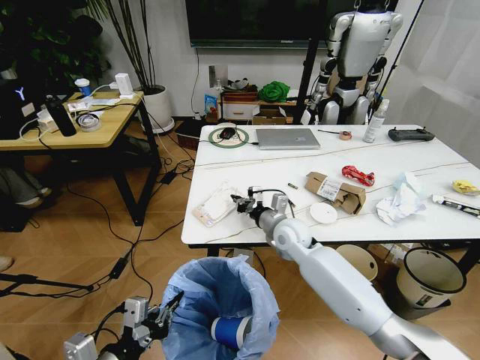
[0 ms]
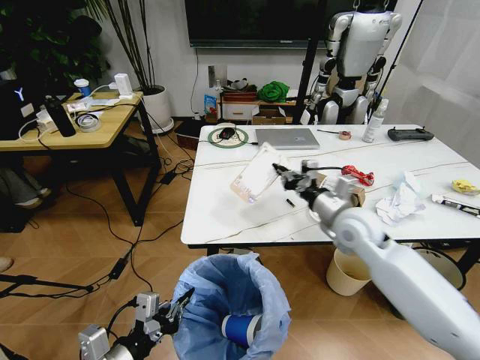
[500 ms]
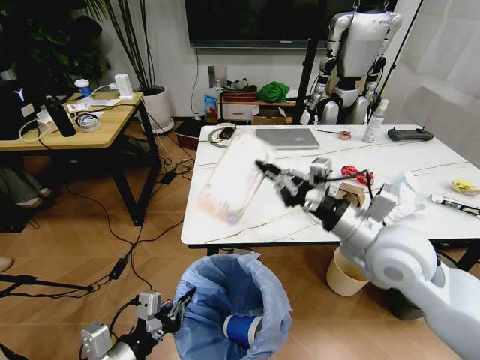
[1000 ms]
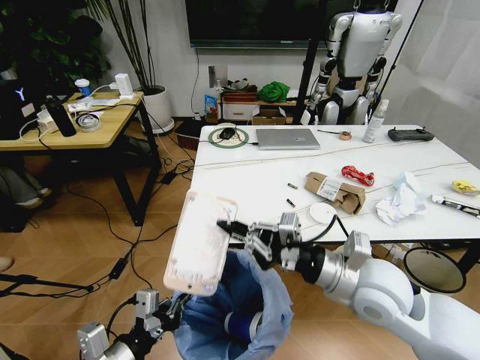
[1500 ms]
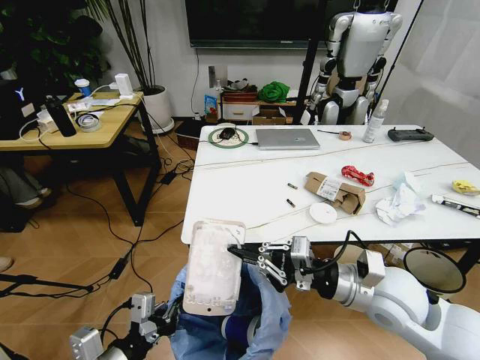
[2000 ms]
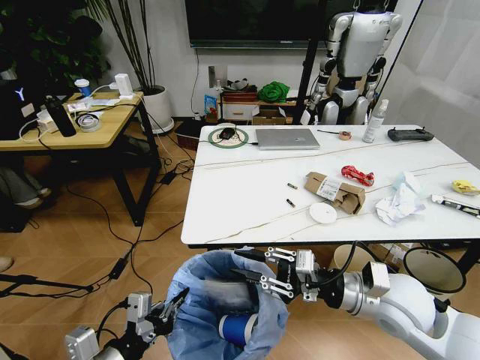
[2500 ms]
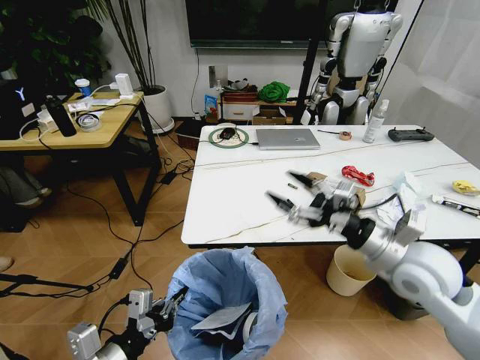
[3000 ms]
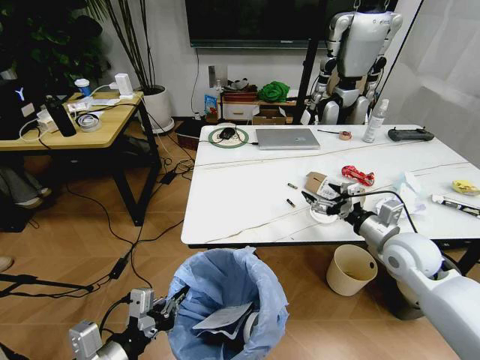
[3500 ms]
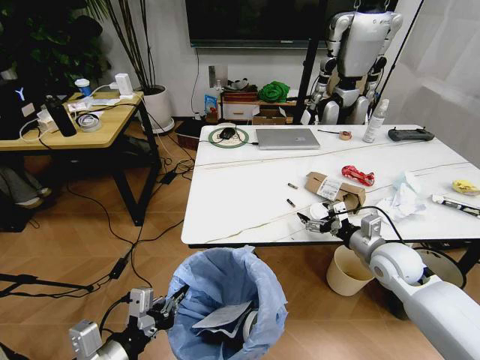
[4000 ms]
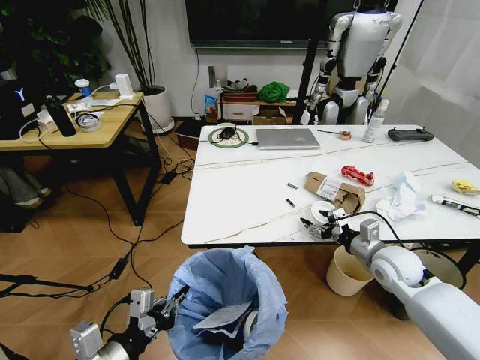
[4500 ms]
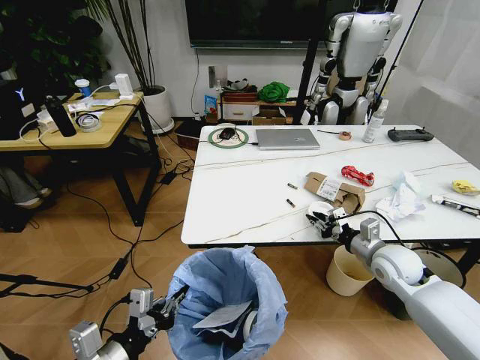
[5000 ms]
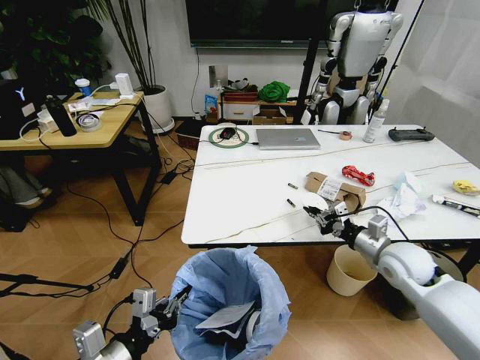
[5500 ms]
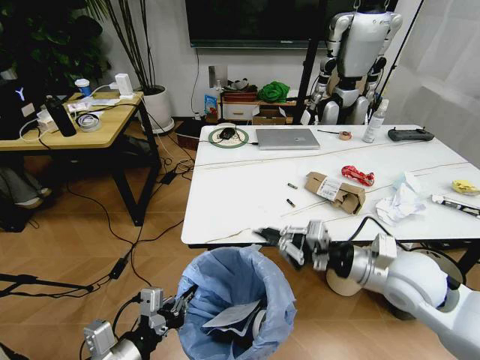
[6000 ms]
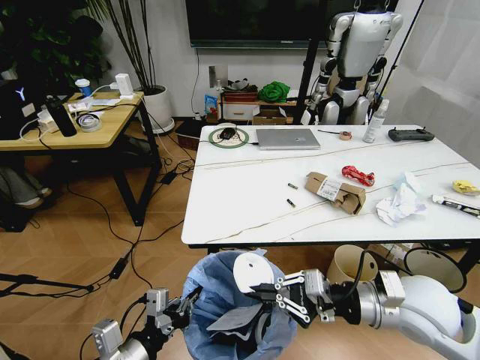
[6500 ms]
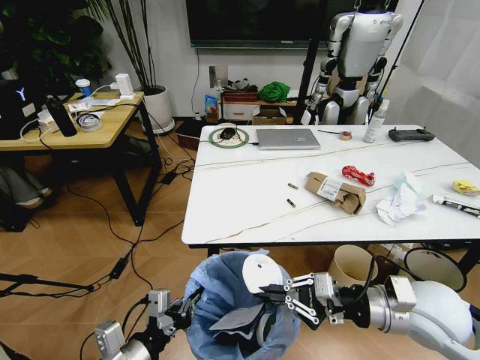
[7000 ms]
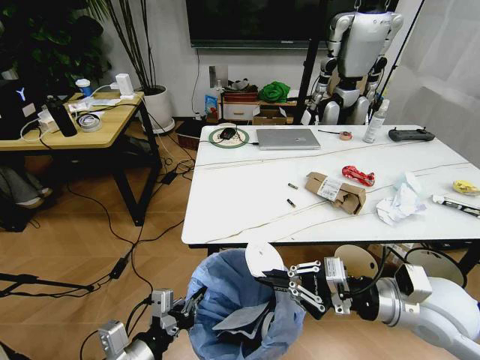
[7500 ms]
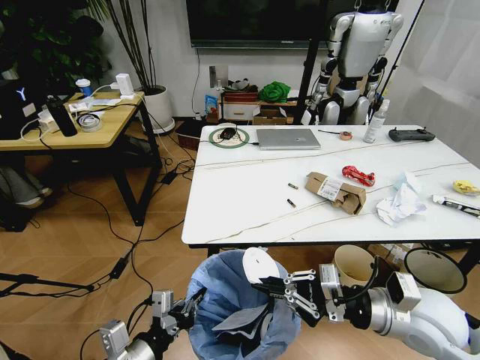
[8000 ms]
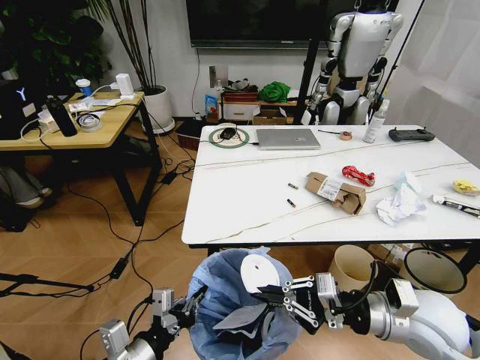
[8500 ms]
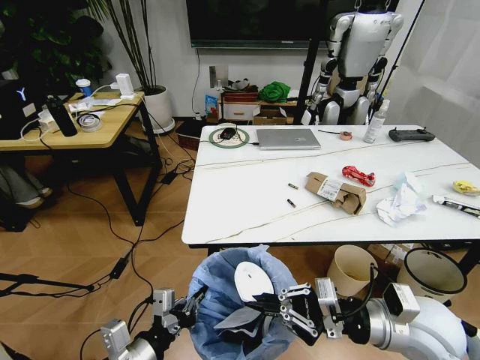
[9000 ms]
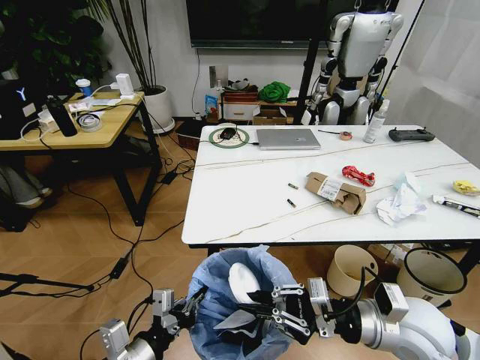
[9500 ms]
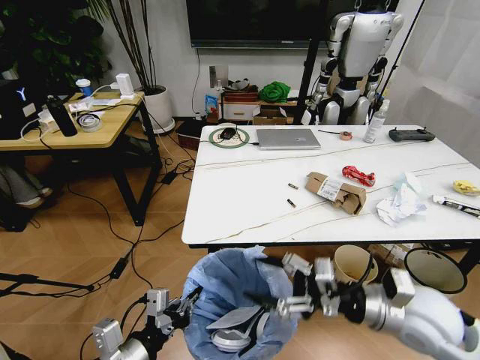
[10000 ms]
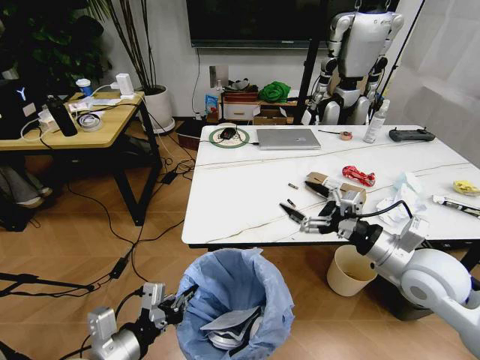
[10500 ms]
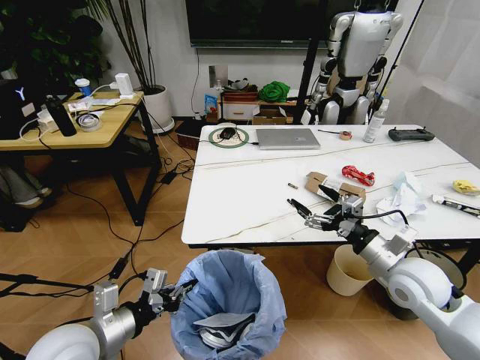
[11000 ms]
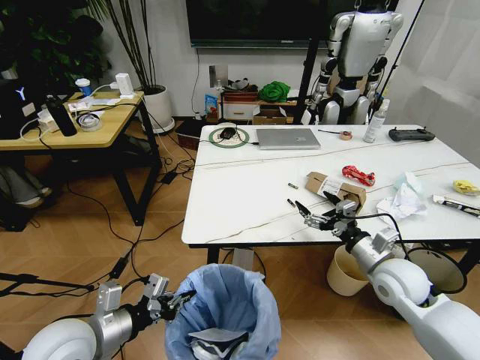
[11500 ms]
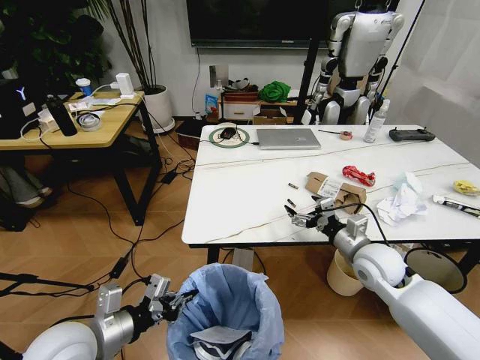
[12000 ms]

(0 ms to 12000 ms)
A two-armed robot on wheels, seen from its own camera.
Task of the whole recording: Pick up the trash bin and place the trash from the table into it.
0 ms - 2000 ms: The right gripper travels backward, to the right and upward by approximately 25 cm.
2000 ms - 4000 ms: The right gripper heads forward, to the right and downward, covering some 15 cm, and opens up.
4000 ms - 6000 ms: The right gripper heads upward, backward and to the left, covering some 15 cm, and closes its fingers.
6000 ms - 8000 ms: The right gripper travels backward by some 5 cm.
8000 ms - 10000 ms: The right gripper opens its fingers.
10000 ms - 12000 ms: The left gripper shifts some 10 cm forward and to the left. Meanwhile the right gripper travels forward and downward by roughly 15 cm.

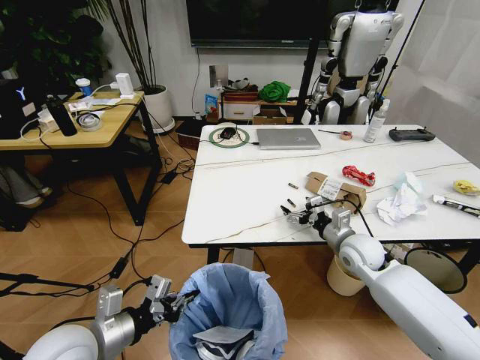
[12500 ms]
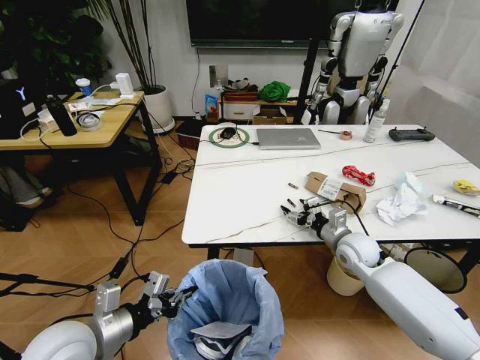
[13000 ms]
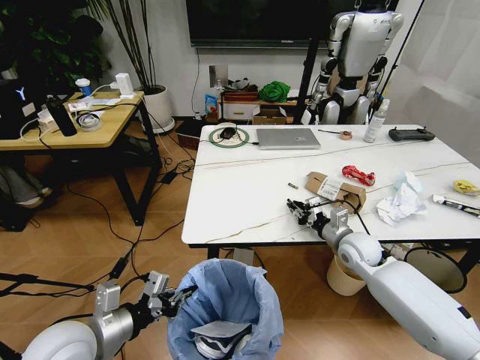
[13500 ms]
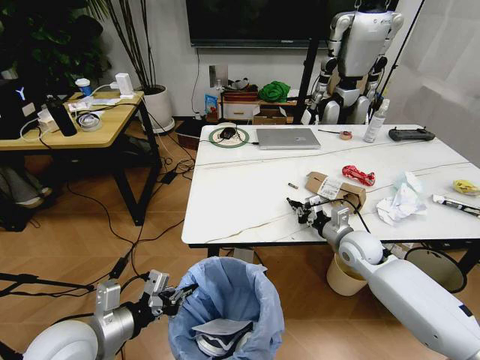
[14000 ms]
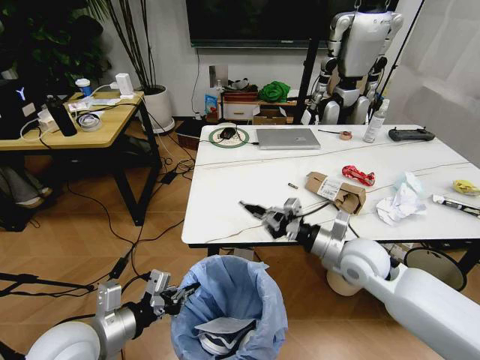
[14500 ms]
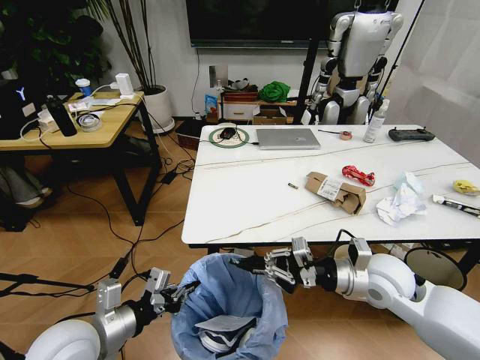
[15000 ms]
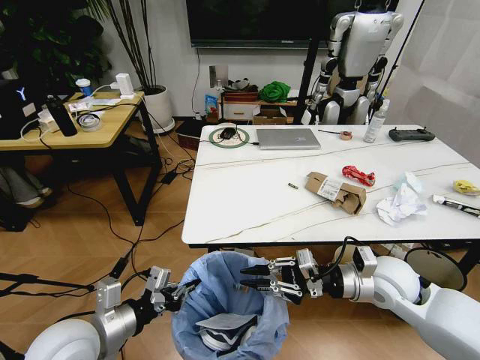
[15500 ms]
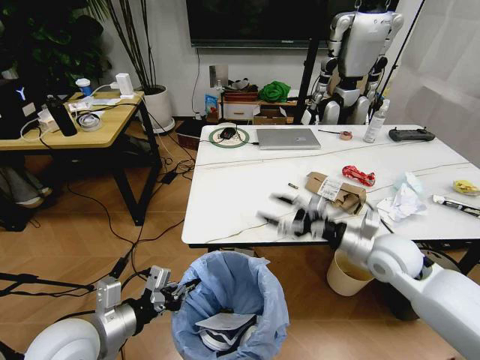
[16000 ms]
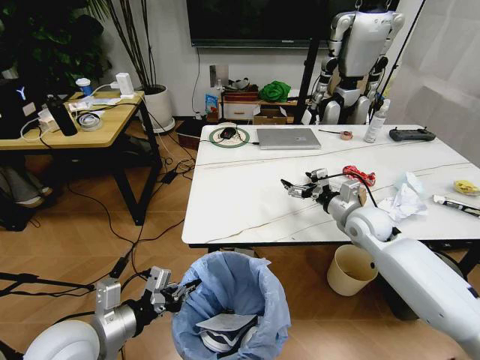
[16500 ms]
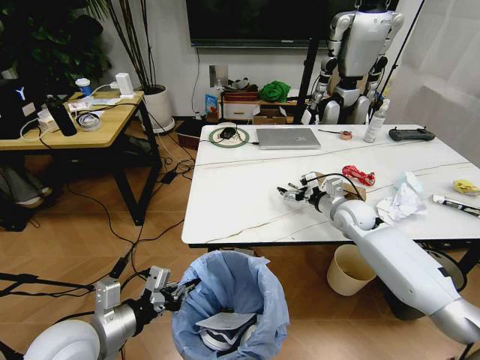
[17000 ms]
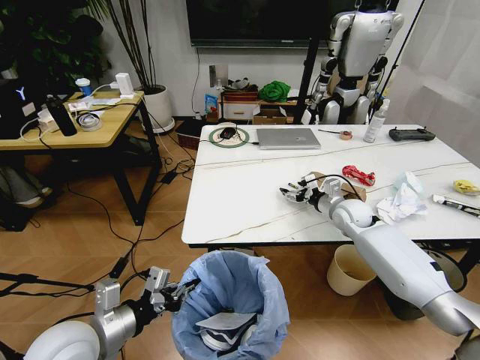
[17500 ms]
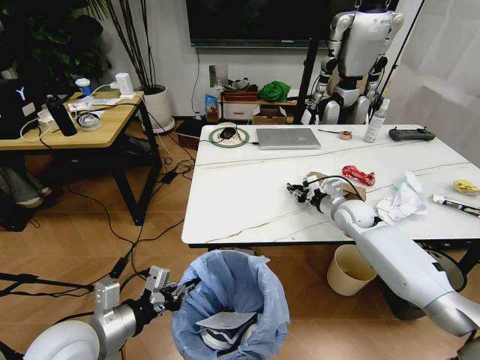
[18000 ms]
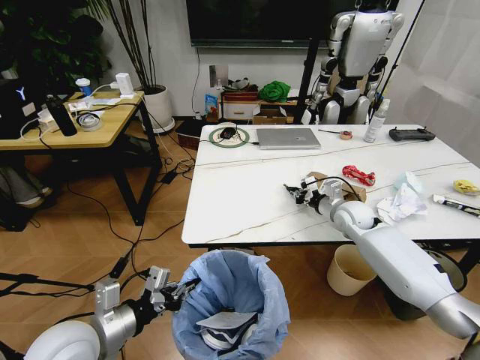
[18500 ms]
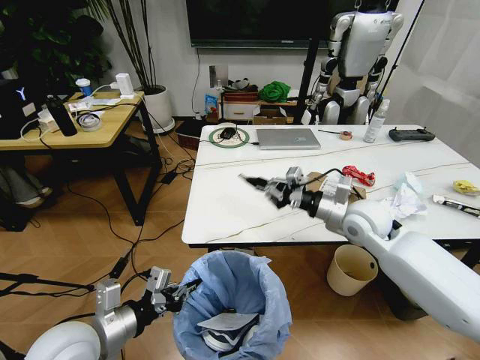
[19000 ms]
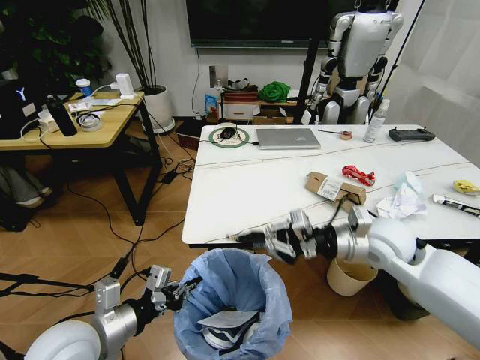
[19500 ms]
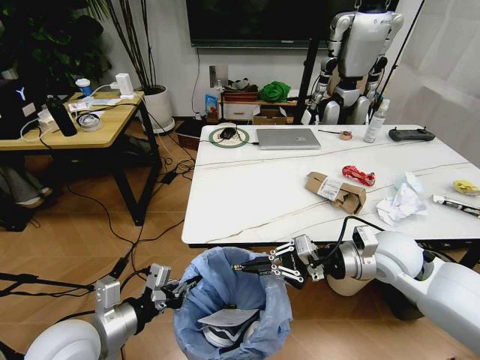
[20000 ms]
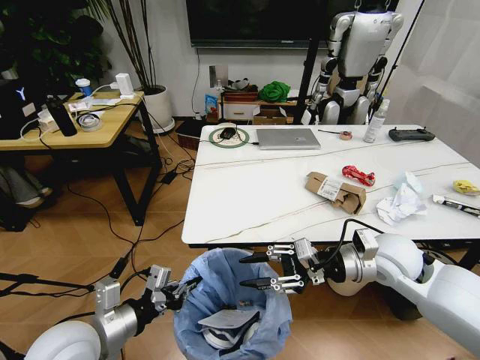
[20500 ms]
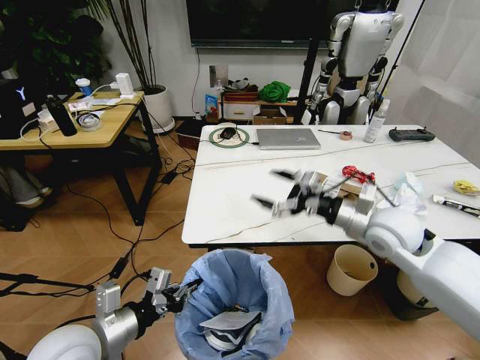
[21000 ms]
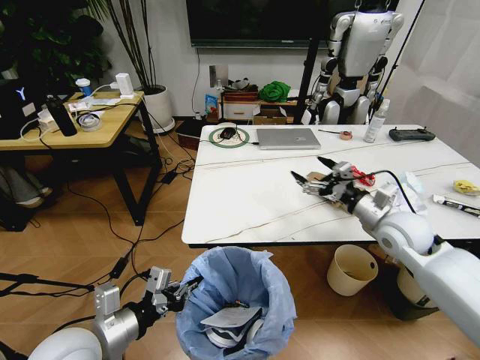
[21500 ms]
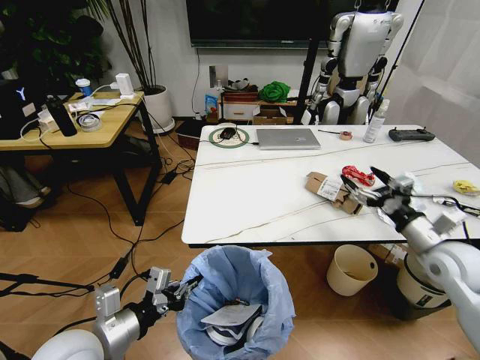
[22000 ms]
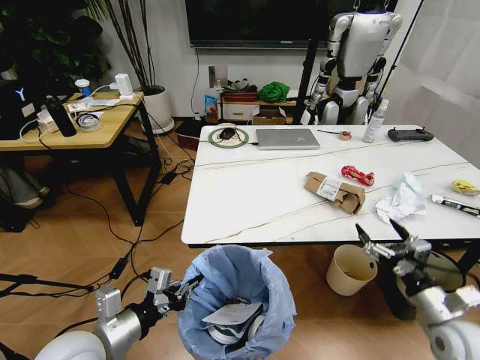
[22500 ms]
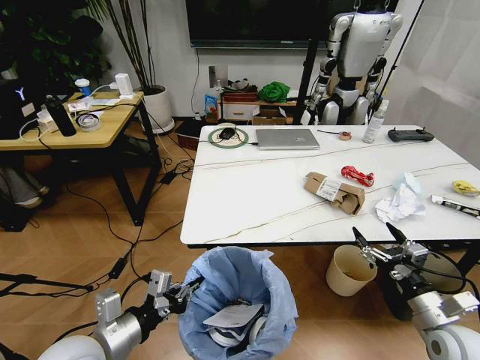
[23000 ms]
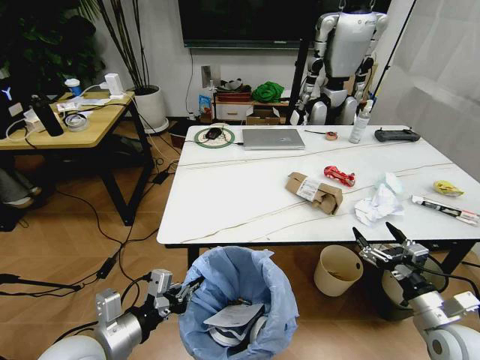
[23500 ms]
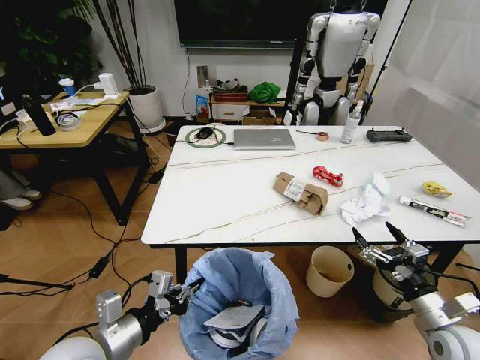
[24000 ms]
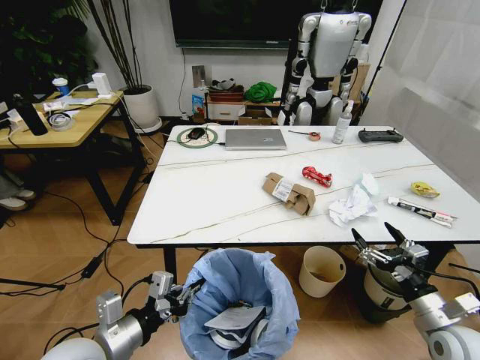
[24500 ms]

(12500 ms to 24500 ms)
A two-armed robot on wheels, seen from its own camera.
Task of the whole recording: Pick up the trash bin and place the trash from the table into it.
12500 ms - 14500 ms: The right gripper shifts roughly 5 cm upward, and closes up.
14500 ms - 16500 ms: The right gripper heads forward and to the right, covering about 10 cm, and opens its fingers.
16500 ms - 18500 ms: The right gripper ends up approximately 5 cm from where it was, and closes its fingers.
18500 ms - 20500 ms: The right gripper shifts some 20 cm backward and upward, and opens up.
20500 ms - 22500 ms: The right gripper goes some 20 cm to the right, backward and downward, and opens.

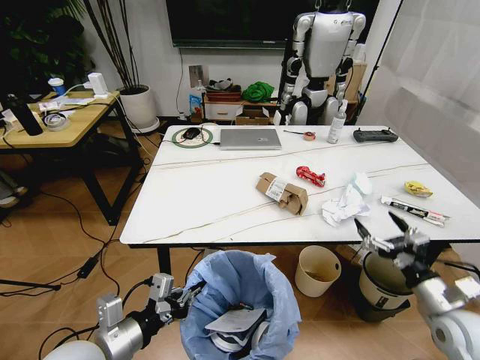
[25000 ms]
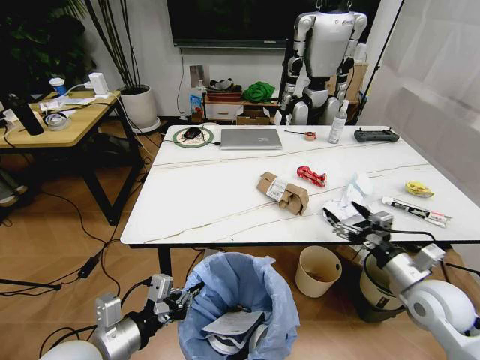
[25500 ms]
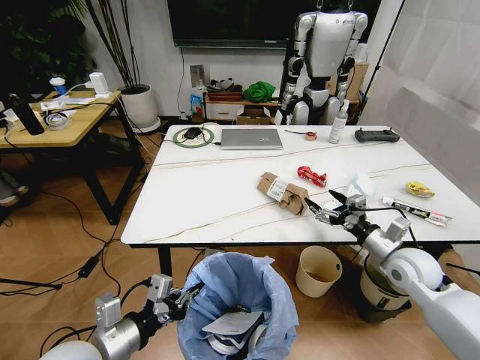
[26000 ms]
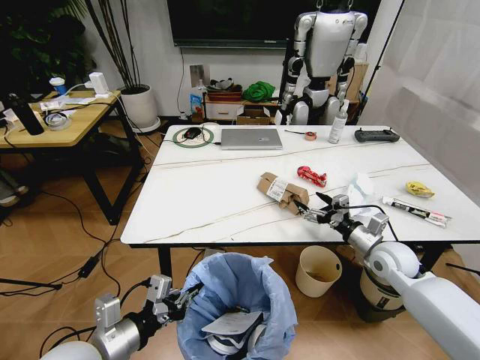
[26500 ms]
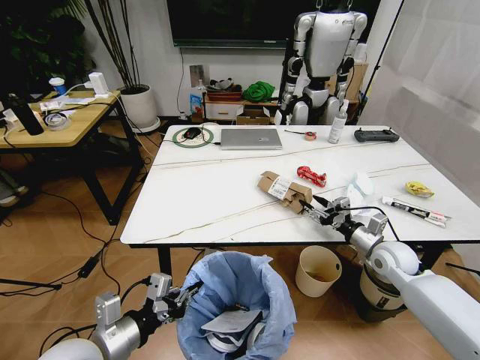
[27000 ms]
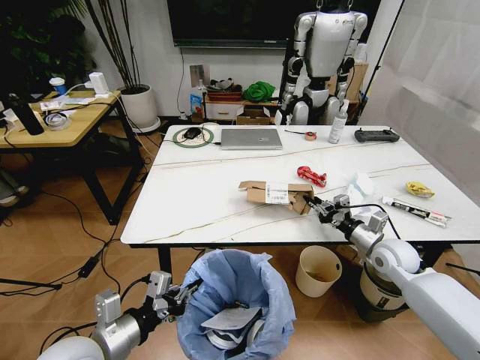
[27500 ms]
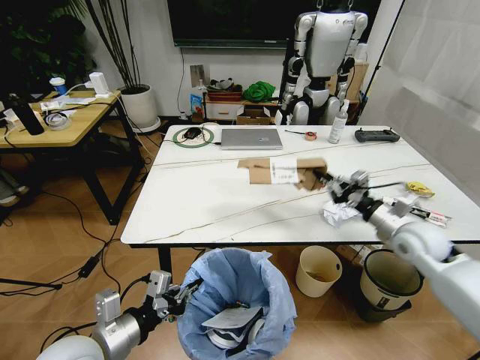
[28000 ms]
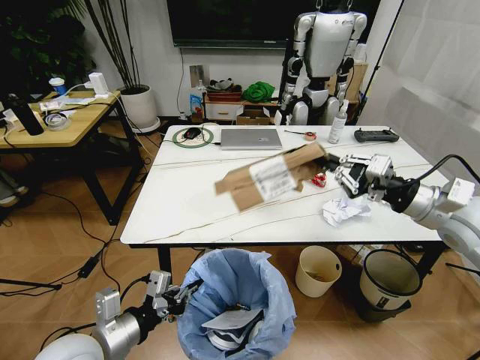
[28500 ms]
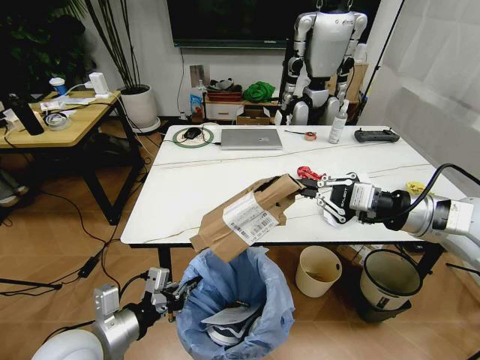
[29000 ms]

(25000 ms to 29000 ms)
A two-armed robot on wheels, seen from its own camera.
Task of the whole recording: Pick up the trash bin and place the trash from the table into it.
25000 ms - 27000 ms: The right gripper heads forward, covering about 20 cm, and closes up.
27000 ms - 29000 ms: The right gripper travels upward by approximately 25 cm, and closes its fingers.
